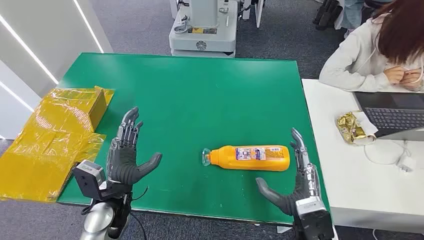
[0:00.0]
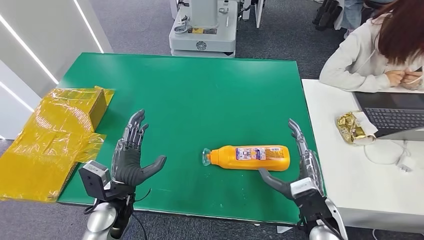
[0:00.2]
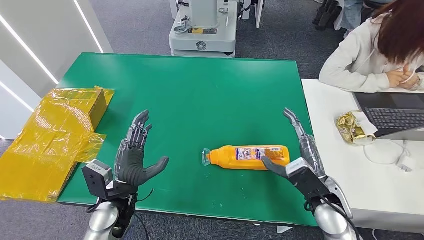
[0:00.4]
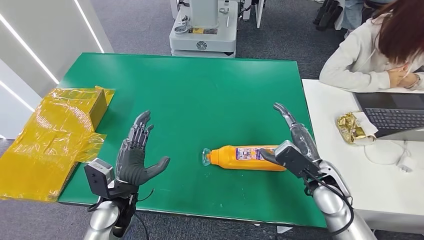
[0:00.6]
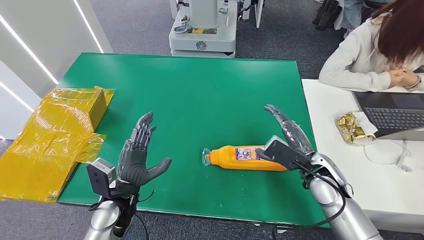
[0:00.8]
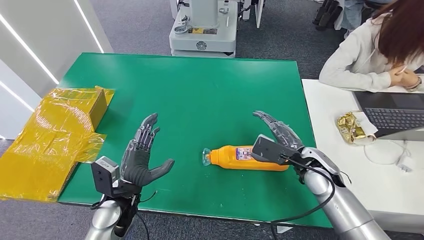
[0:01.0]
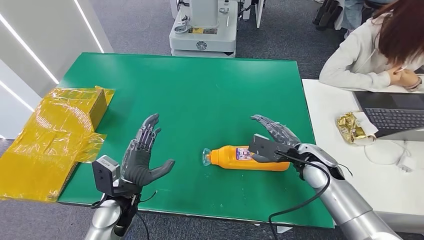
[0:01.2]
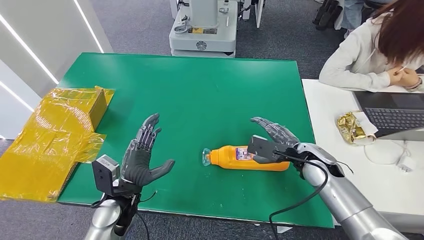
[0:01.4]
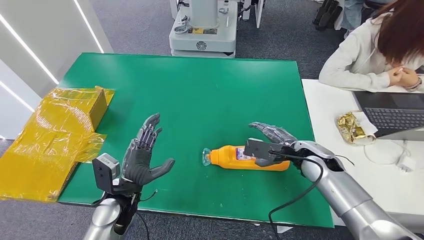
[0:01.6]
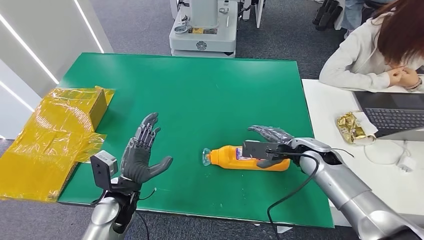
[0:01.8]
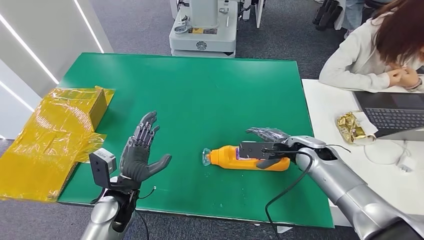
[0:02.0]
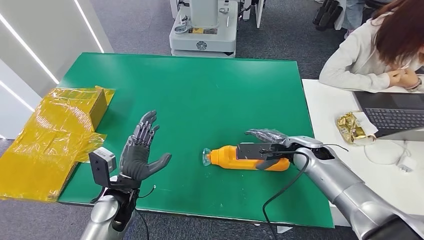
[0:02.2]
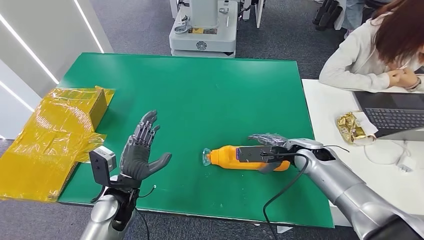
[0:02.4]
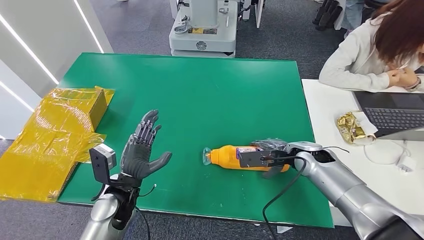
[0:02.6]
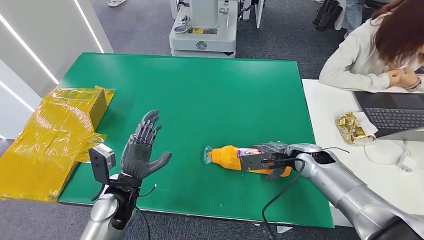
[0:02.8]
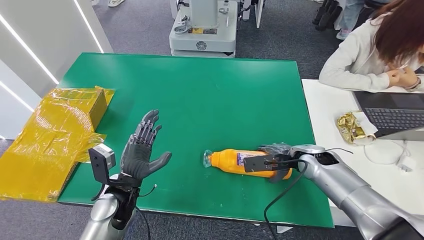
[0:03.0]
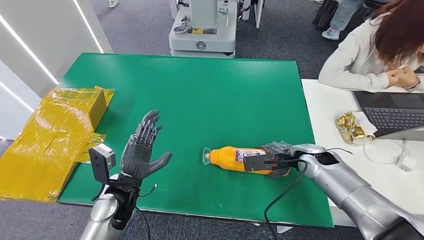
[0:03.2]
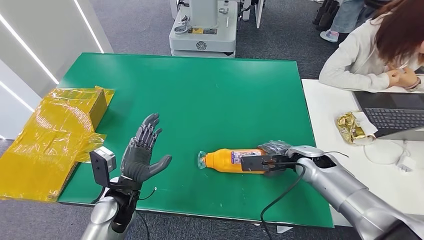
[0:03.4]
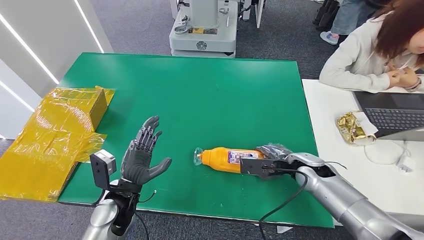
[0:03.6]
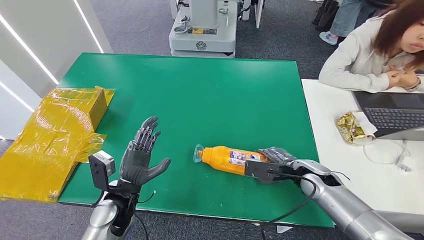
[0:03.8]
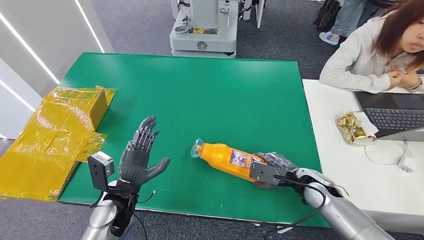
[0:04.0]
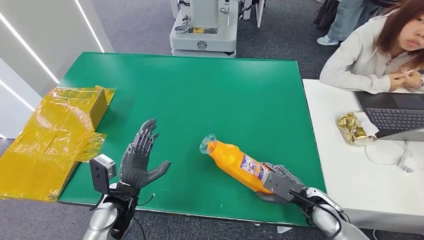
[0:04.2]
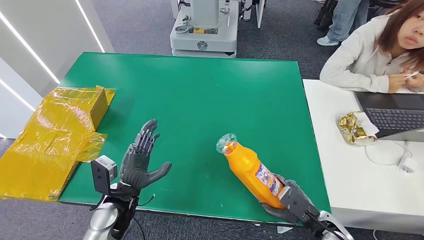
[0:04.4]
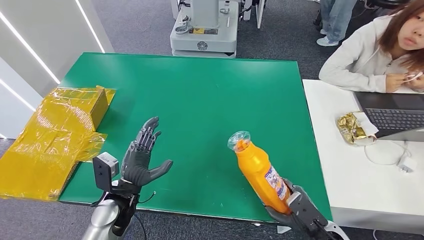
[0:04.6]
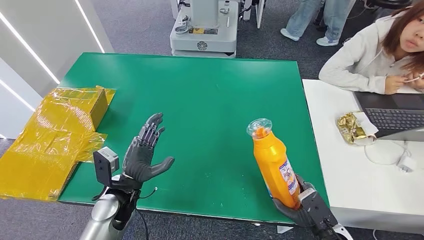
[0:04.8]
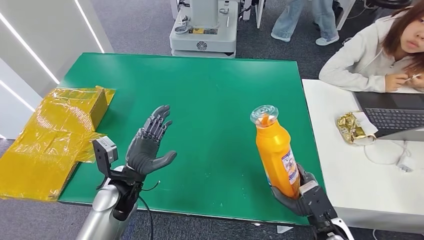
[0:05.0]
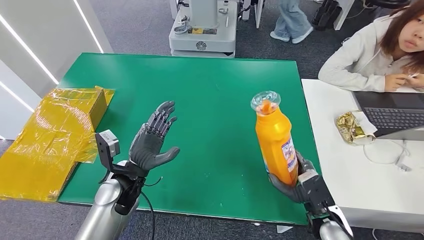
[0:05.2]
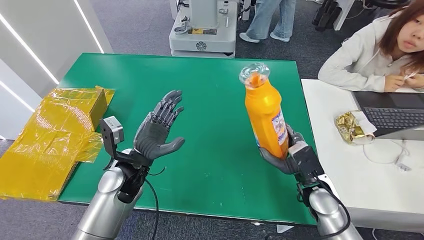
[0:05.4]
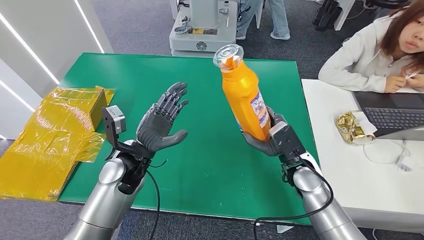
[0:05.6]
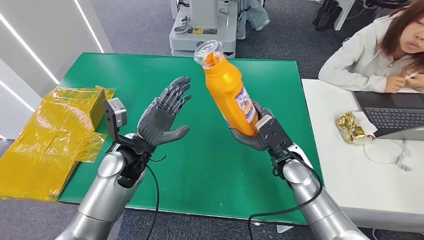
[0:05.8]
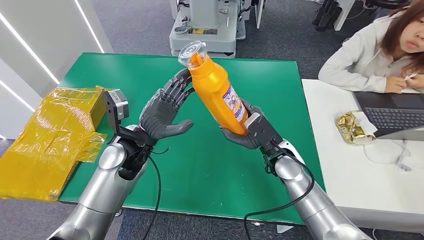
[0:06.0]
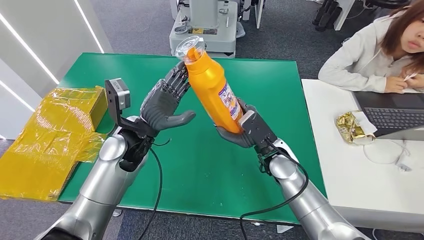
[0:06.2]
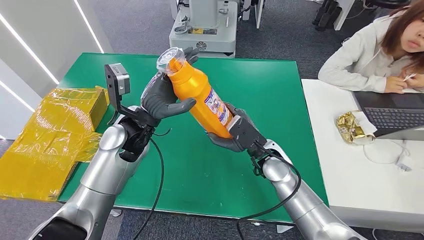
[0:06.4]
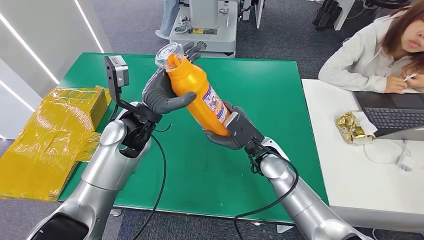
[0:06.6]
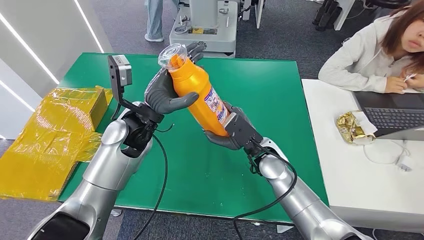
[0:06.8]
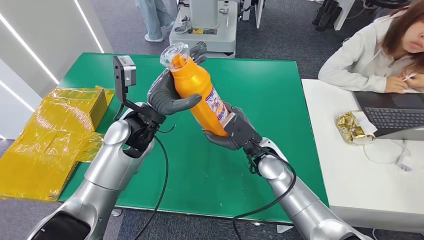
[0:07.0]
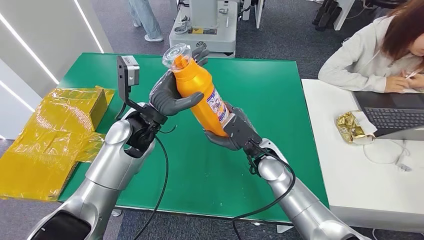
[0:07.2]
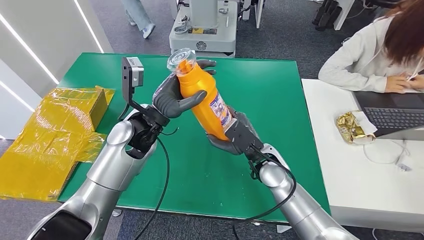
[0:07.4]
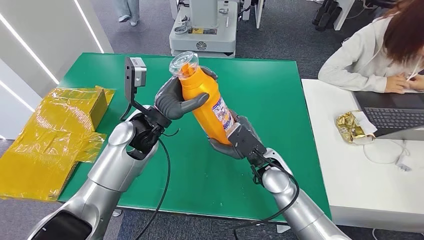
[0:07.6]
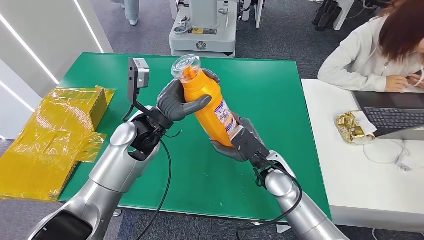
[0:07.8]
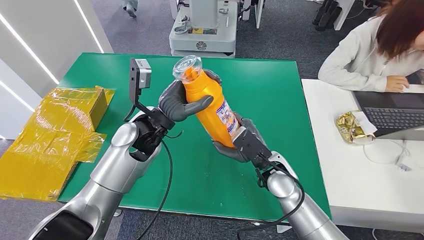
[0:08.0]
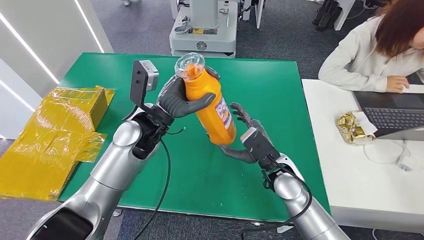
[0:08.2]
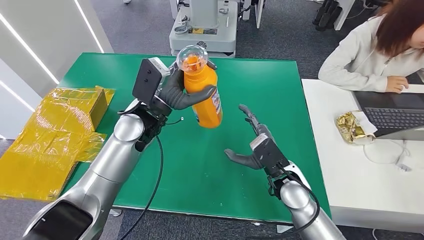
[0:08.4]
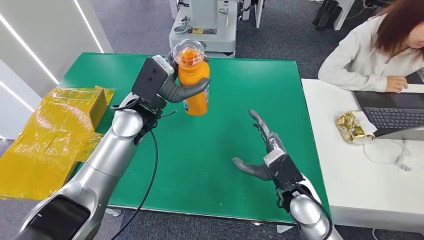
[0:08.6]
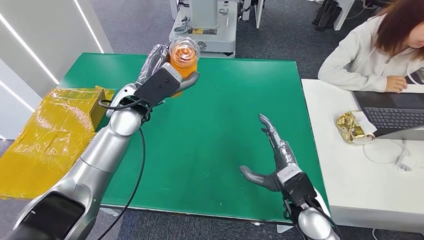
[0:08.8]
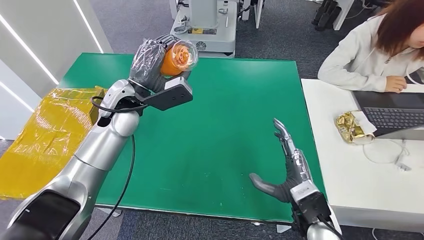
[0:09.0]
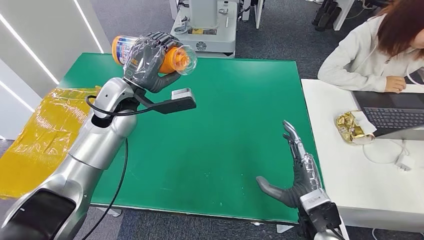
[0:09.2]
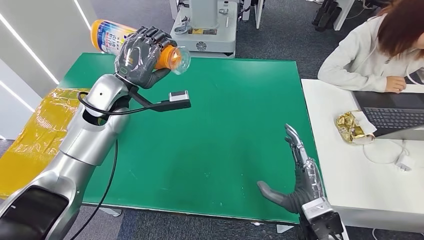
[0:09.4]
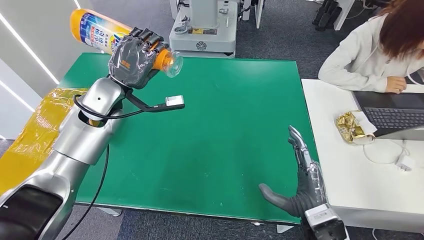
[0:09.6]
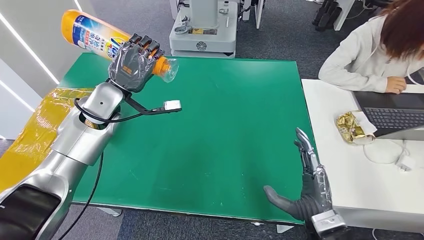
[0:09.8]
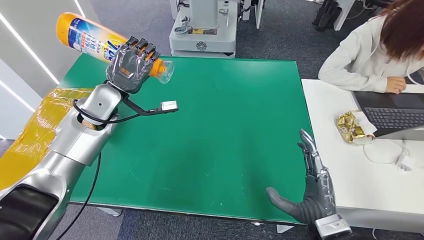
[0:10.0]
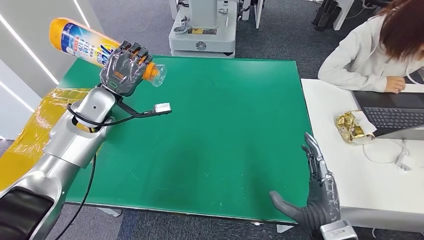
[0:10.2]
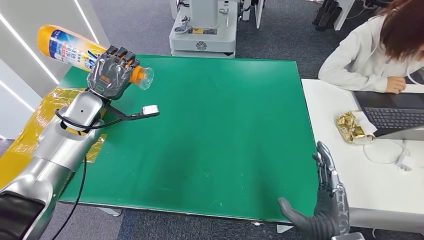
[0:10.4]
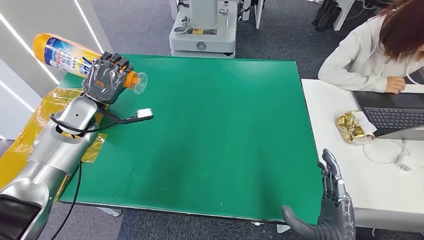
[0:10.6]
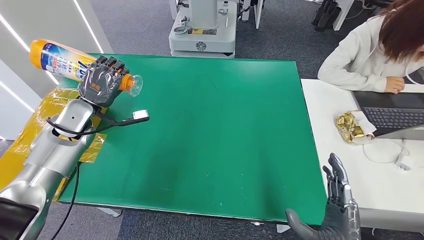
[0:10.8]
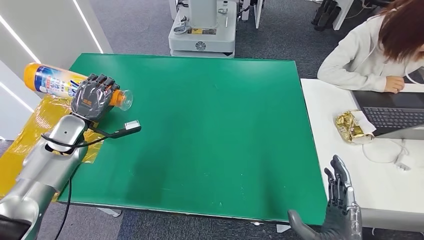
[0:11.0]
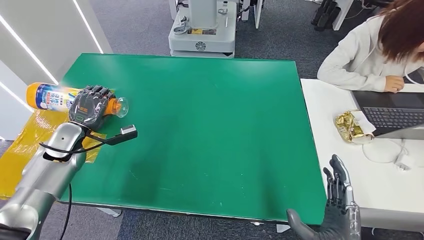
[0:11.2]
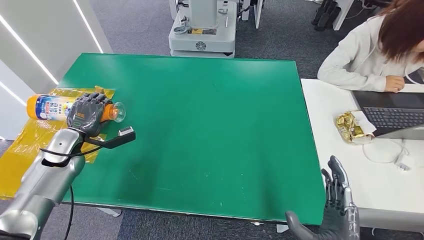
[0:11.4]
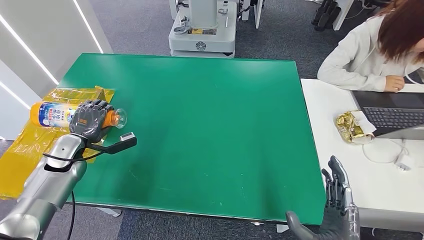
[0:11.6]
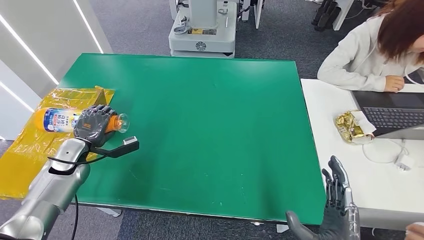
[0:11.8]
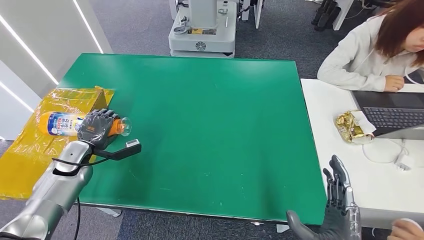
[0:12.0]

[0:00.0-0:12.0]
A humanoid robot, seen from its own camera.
Step, 0.0 to 5.4 s: Pick up the bottle from the table.
3.0 to 4.4 s: The right hand is displaced backward and downward by some 20 cm.
10.4 to 12.0 s: The left hand shifts roughly 15 cm downward, to the left and backward.

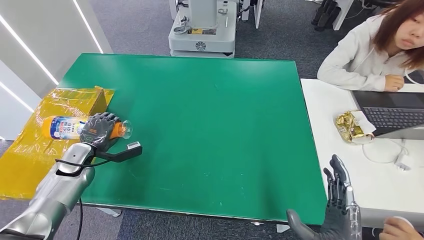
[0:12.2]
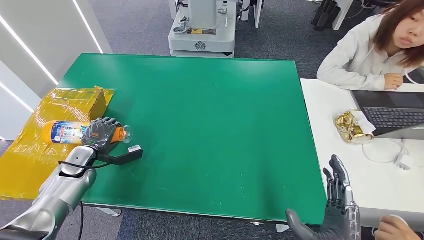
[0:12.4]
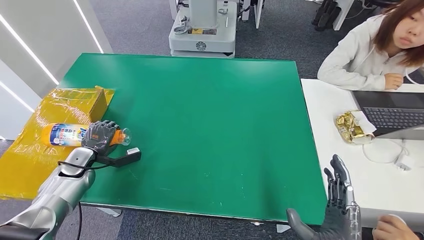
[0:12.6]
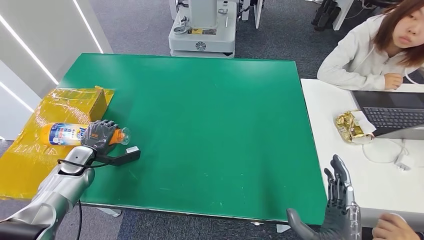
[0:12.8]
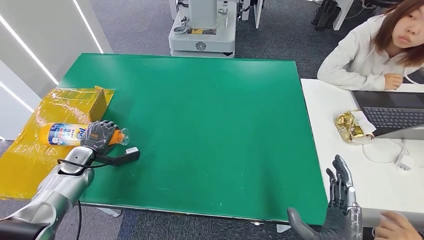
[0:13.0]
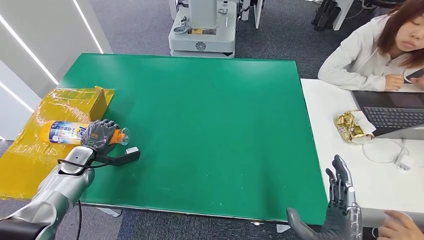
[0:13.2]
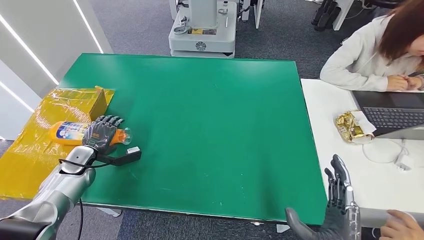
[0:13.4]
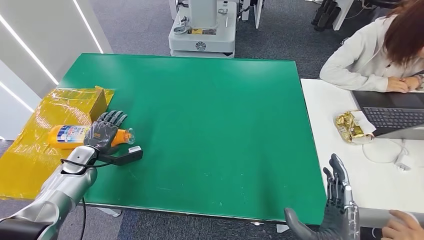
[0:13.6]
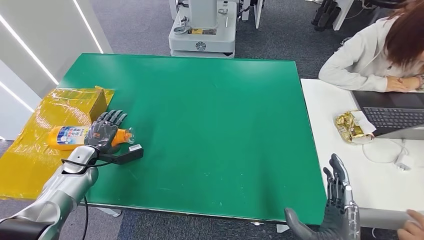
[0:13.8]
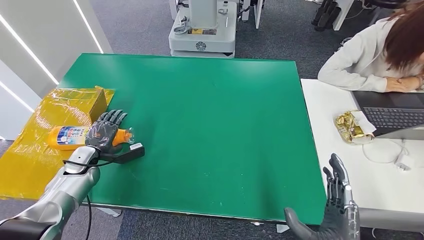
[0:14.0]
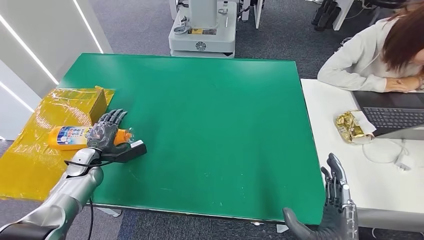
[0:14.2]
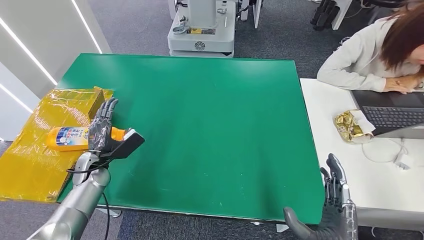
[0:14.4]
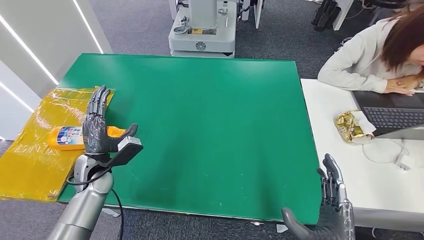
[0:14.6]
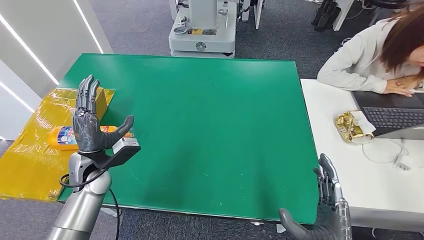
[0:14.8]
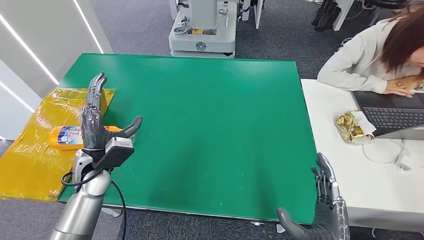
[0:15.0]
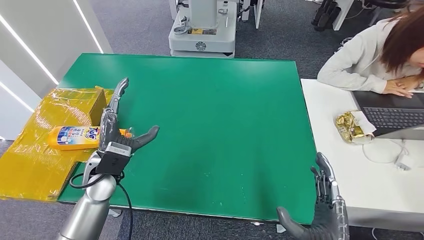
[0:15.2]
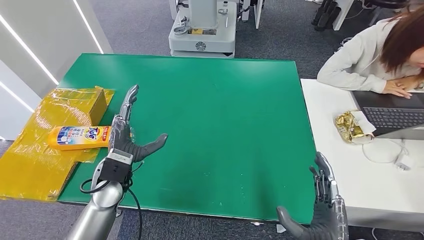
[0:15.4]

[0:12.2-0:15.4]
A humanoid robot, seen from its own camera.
Step, 12.2 to 15.4 s: Turn the bottle to the front side.
12.2 to 13.8 s: The hands stay close to where they were, moving slightly.
13.8 to 15.4 s: The left hand travels to the right and upward by about 20 cm.

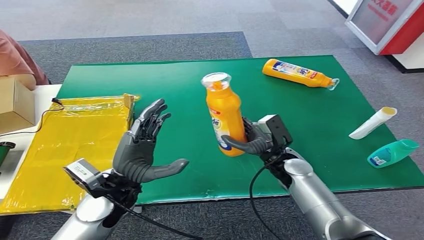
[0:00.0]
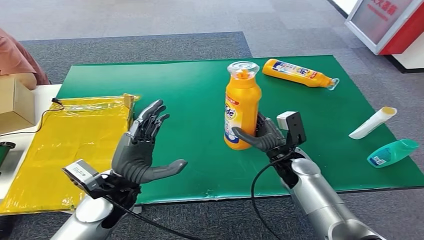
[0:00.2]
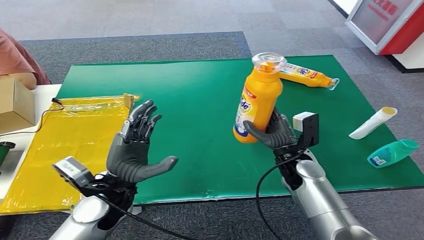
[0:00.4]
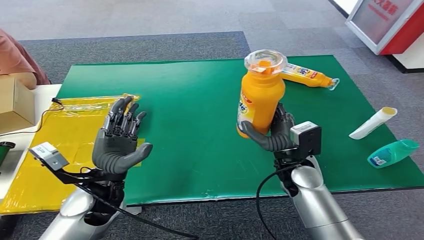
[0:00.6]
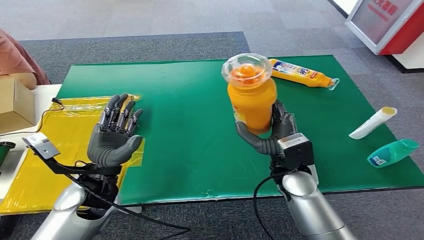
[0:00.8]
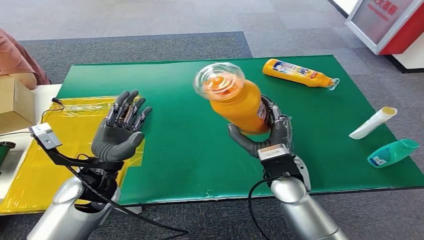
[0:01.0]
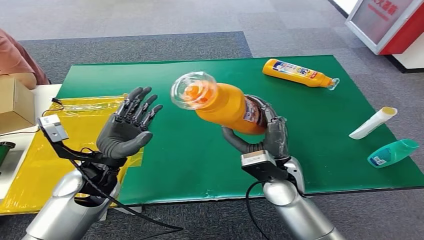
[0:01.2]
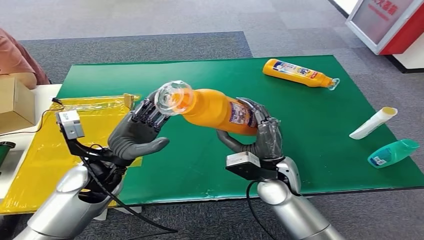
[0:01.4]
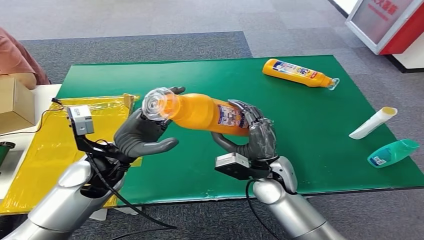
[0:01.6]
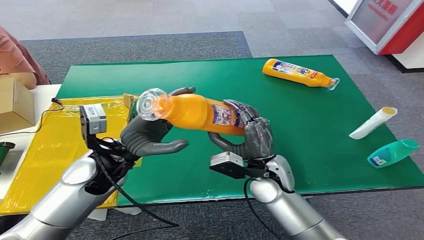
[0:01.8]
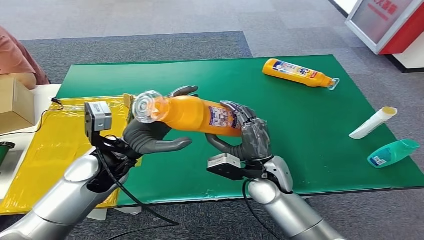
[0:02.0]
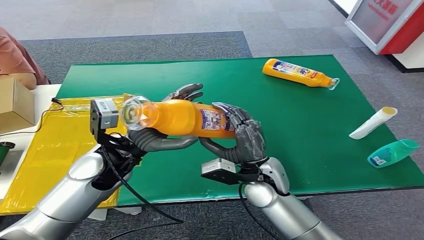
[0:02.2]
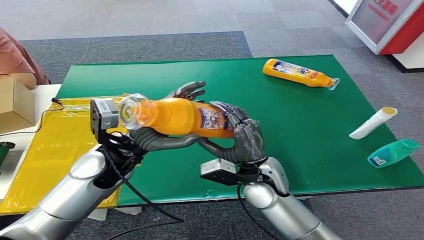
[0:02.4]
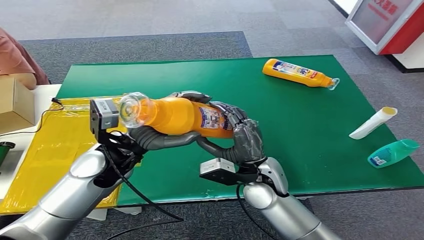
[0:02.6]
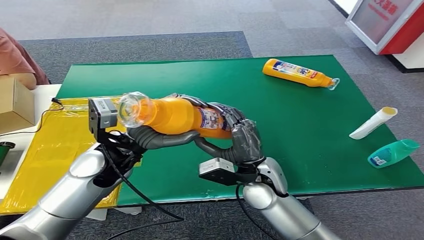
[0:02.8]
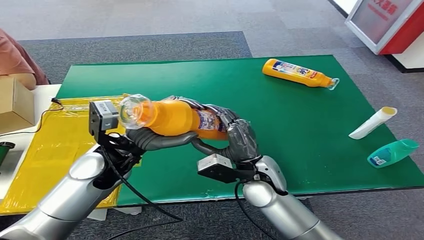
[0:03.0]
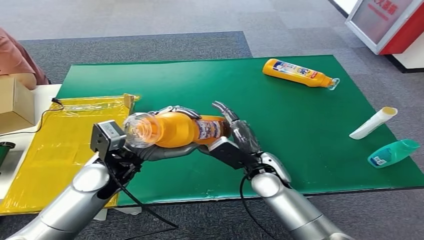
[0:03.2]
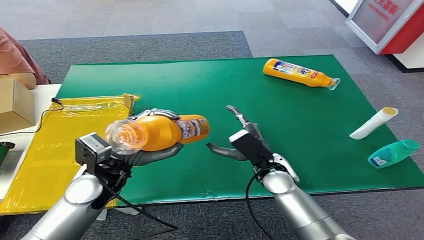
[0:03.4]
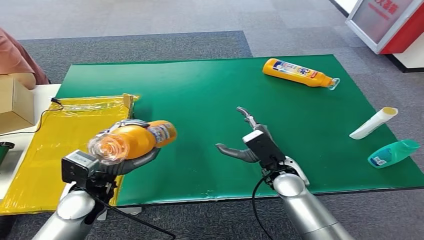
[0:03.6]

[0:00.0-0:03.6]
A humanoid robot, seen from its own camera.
1.8 to 3.6 s: The left hand is displaced downward by roughly 5 cm.
